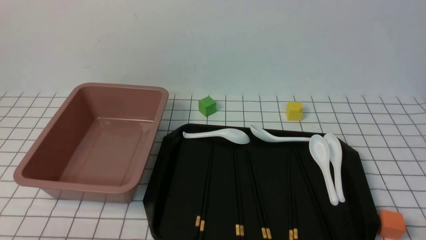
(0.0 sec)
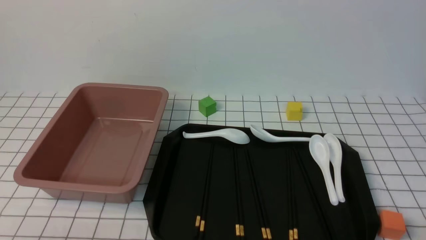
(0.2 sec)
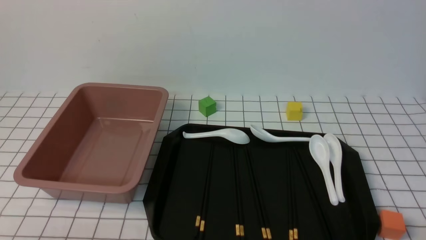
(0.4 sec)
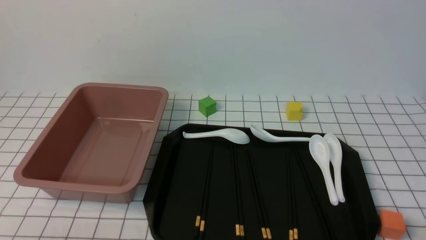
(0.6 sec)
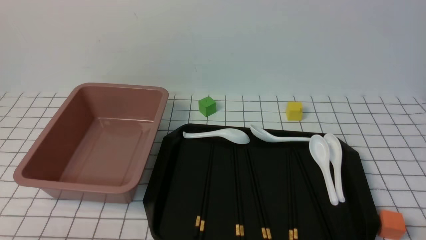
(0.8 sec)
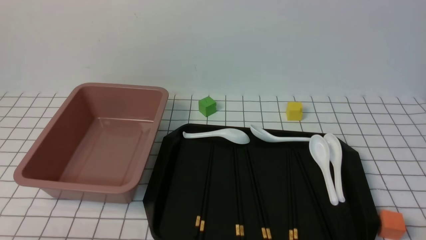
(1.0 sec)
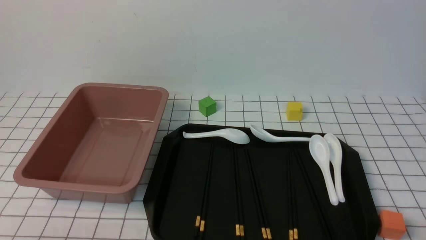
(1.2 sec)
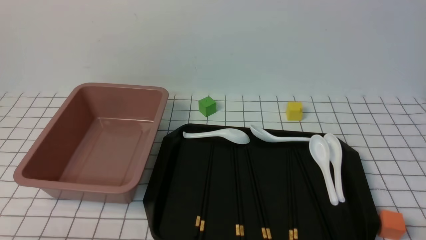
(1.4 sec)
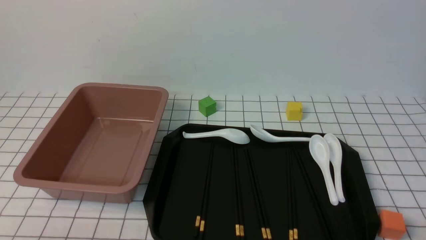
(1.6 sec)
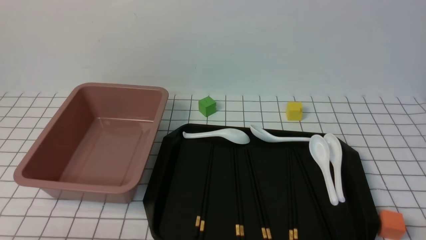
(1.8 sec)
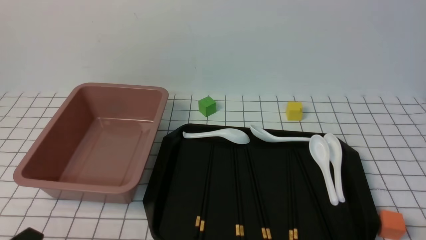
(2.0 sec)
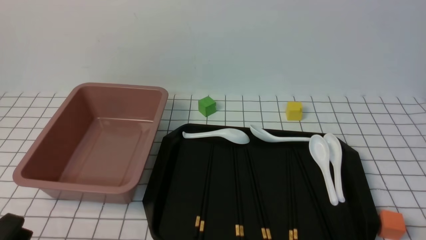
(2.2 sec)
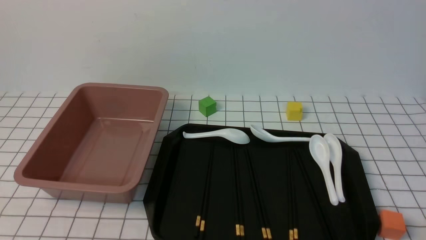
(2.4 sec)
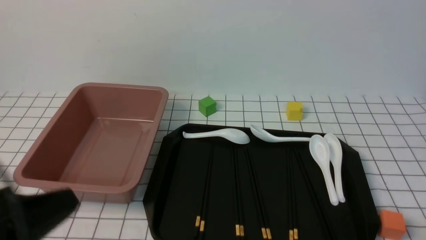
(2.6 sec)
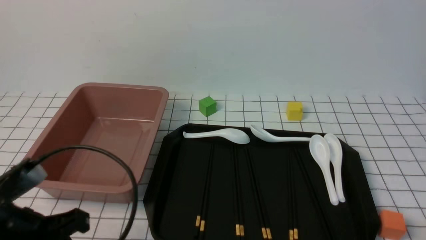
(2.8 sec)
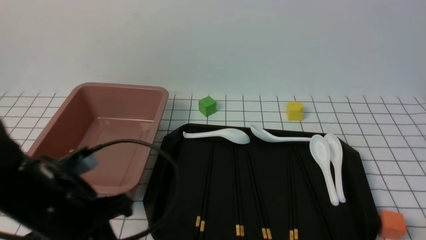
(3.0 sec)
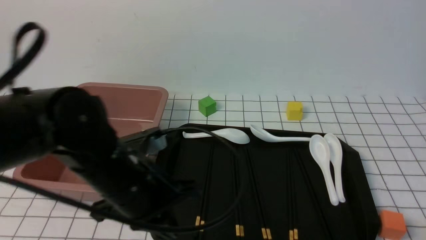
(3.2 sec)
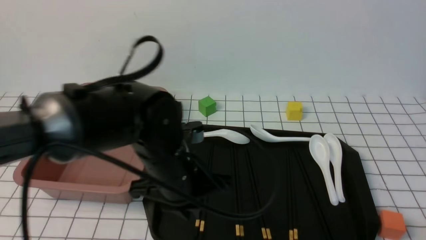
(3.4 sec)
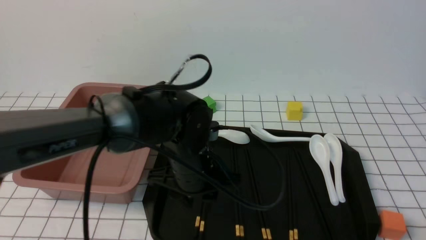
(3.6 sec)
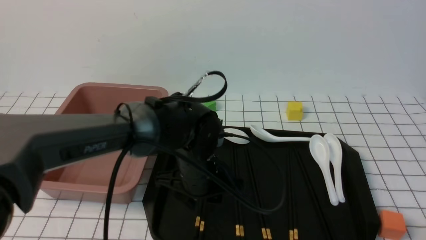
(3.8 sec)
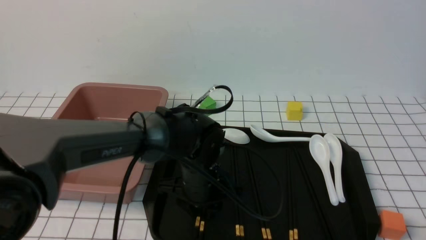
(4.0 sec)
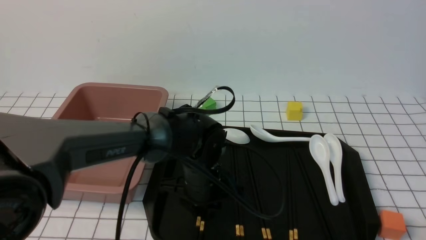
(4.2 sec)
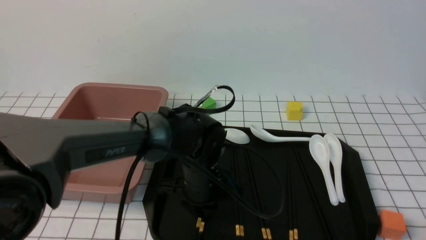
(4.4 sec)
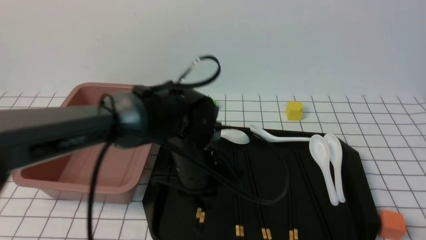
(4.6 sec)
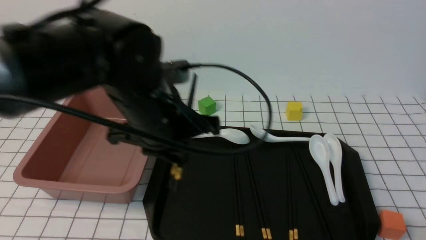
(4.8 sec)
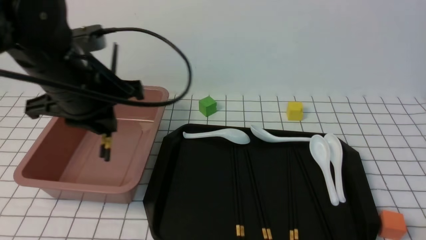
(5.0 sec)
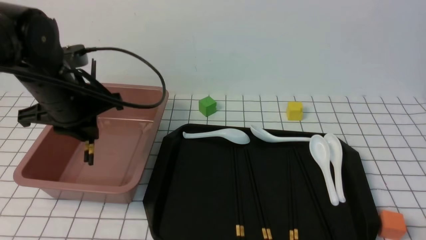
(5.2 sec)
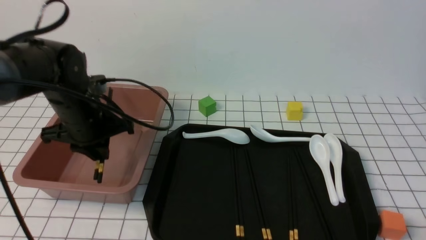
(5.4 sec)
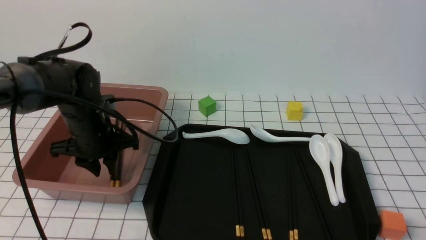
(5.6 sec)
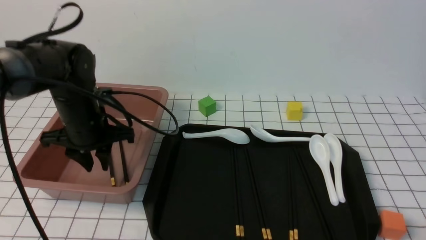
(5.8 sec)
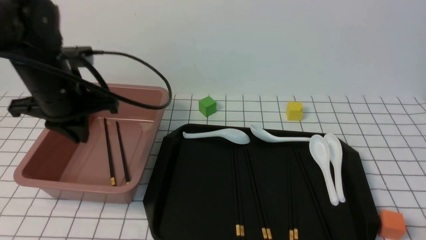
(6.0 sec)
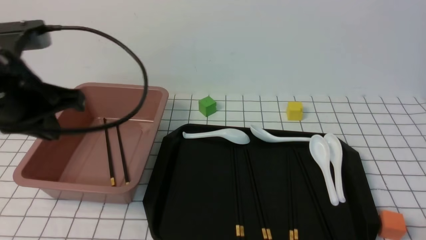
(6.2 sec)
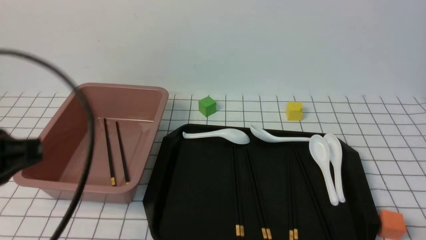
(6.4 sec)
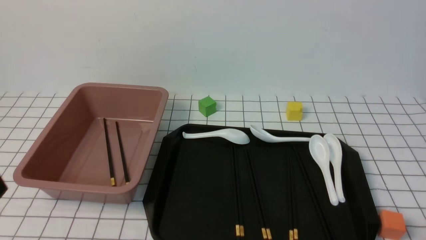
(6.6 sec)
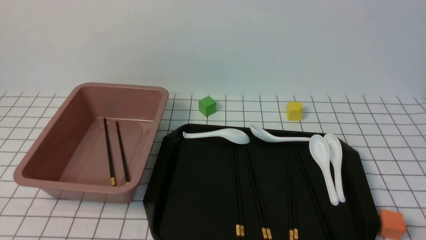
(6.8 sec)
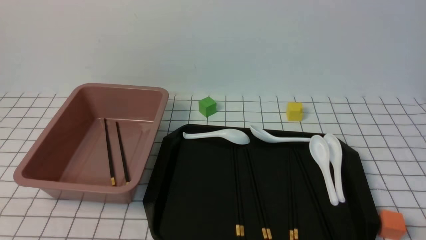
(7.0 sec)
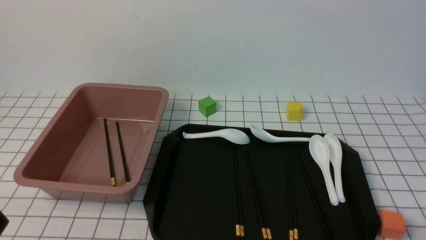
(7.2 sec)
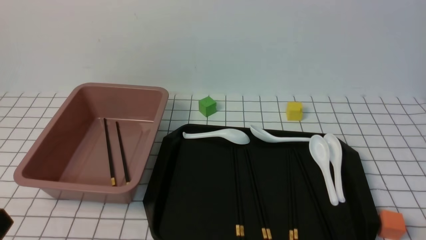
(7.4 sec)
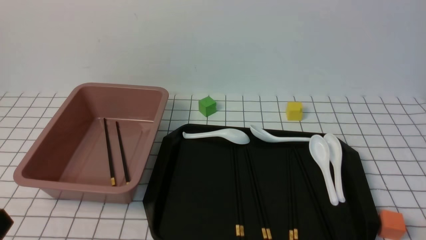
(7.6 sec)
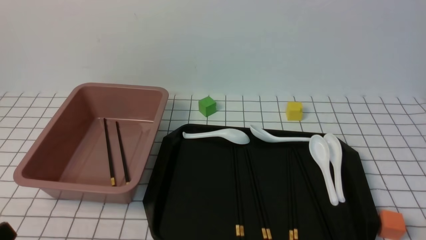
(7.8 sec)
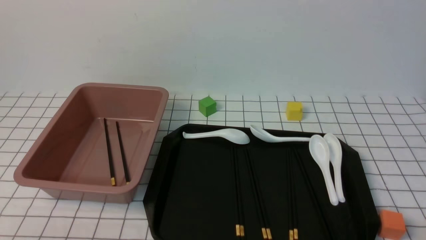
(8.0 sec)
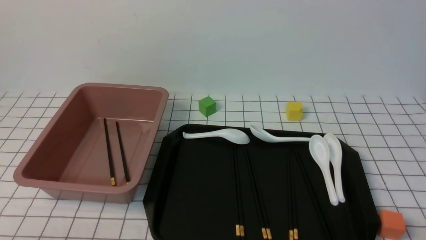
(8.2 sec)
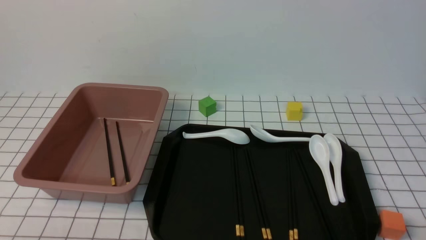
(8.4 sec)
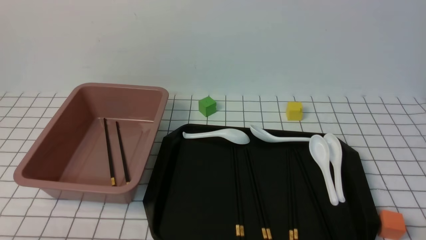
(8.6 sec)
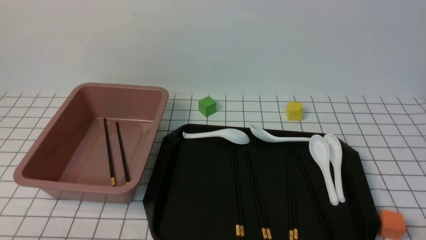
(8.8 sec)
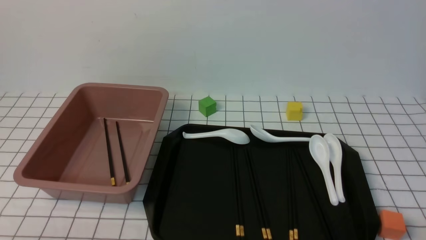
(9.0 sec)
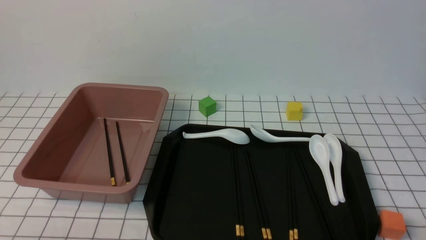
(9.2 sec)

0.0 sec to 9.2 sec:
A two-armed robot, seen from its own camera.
Step, 0.0 sec to 4.4 sec: use the left arm to grab a pair of chopsticks.
Step, 4.6 sec to 5.8 sec: use the left arm to put the chopsticks into the lunch box.
1.6 sec to 3.0 sec: The left gripper shifts about 20 cm forward, upward and to the right, and closes.
3.0 sec to 4.6 sec: The left gripper heads to the right and forward, covering some 15 cm, and opens its fingers.
4.6 sec to 6.2 sec: The left gripper moves to the left and upward, approximately 20 cm, and closes its fingers.
6.2 sec to 7.6 sec: The left gripper goes some 20 cm backward and downward.
